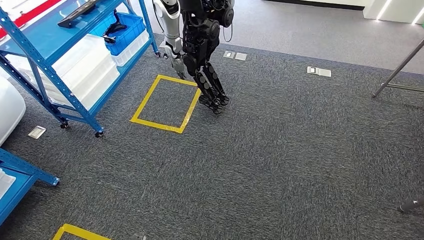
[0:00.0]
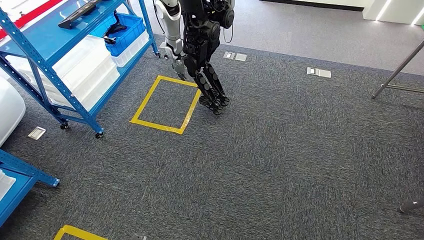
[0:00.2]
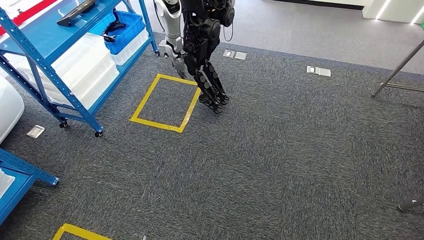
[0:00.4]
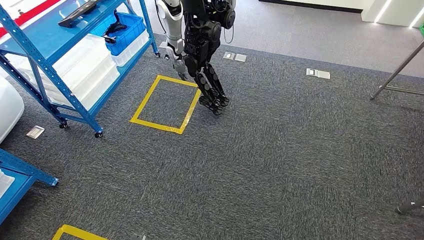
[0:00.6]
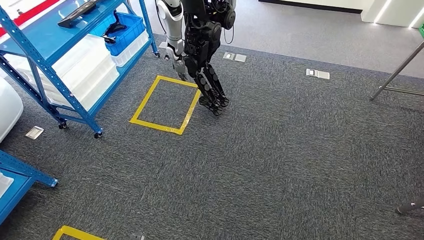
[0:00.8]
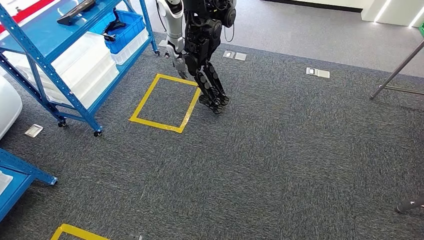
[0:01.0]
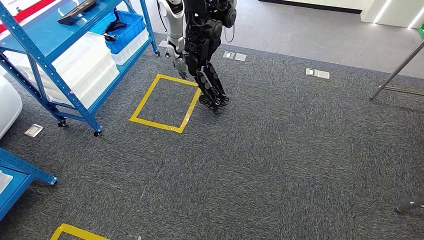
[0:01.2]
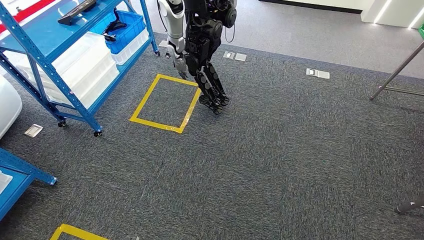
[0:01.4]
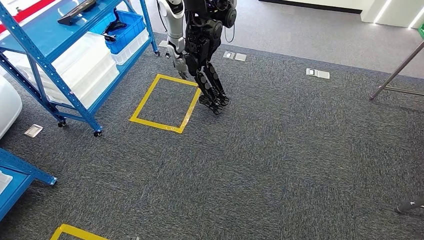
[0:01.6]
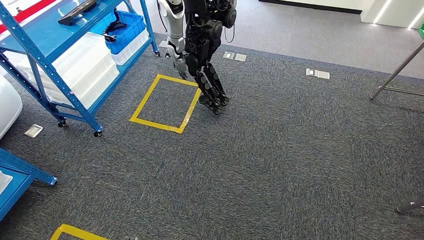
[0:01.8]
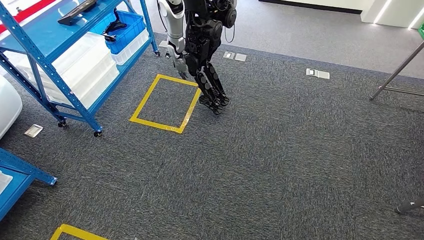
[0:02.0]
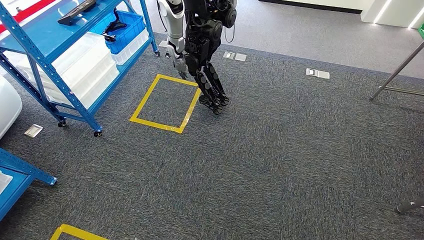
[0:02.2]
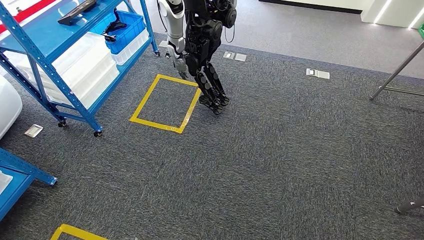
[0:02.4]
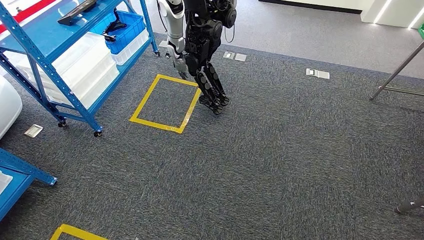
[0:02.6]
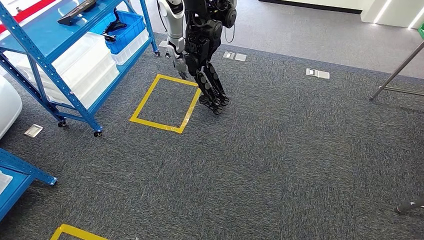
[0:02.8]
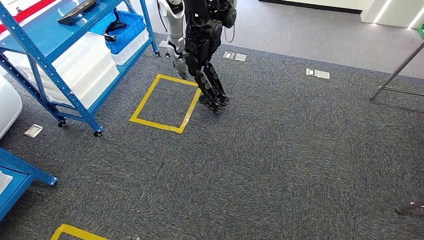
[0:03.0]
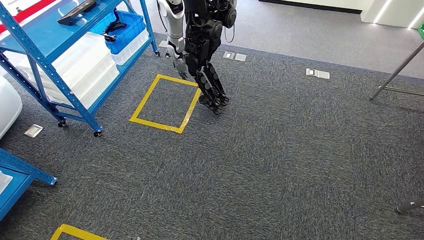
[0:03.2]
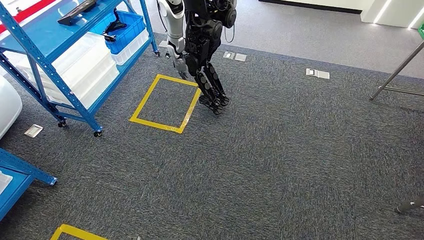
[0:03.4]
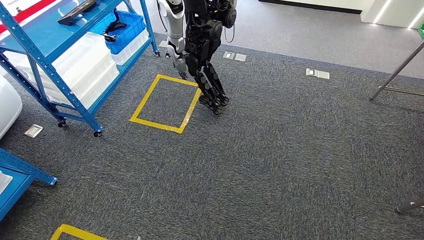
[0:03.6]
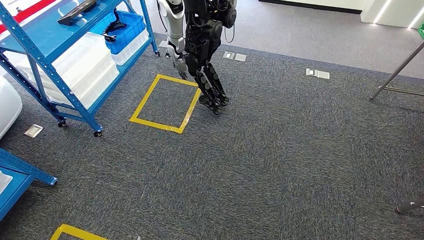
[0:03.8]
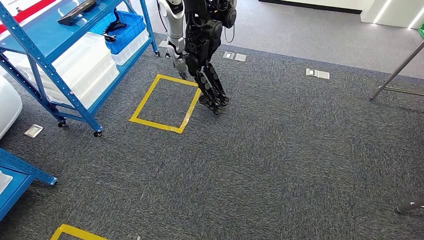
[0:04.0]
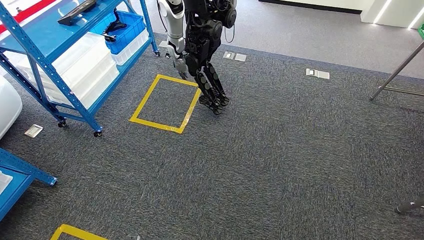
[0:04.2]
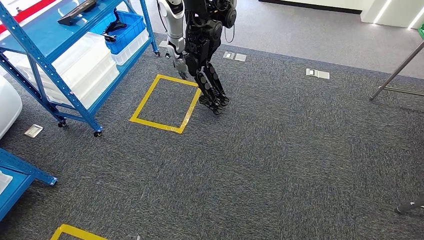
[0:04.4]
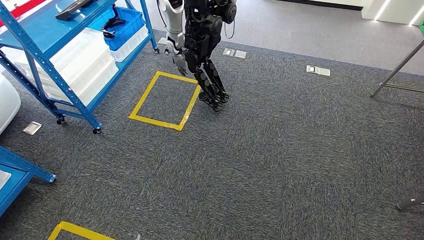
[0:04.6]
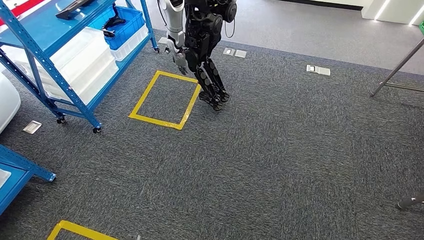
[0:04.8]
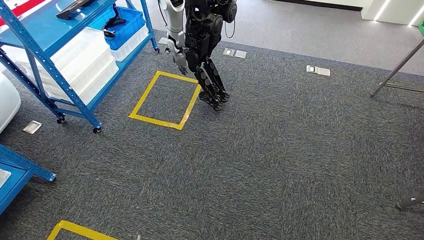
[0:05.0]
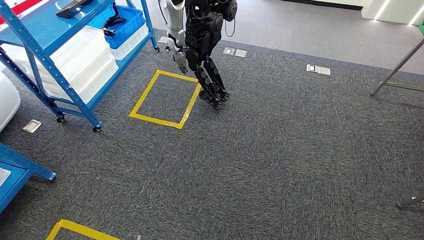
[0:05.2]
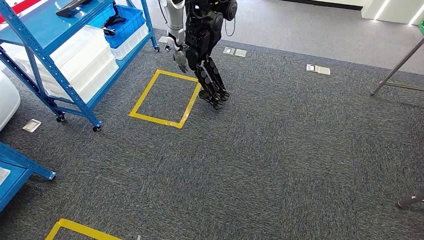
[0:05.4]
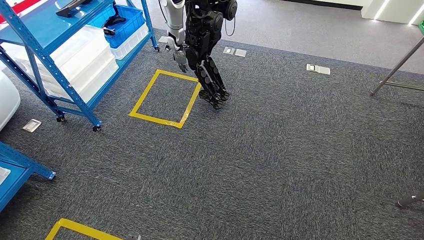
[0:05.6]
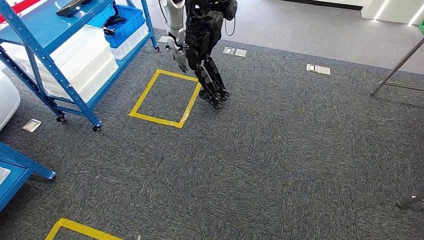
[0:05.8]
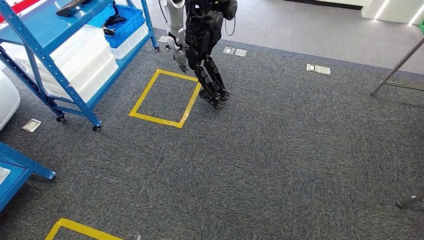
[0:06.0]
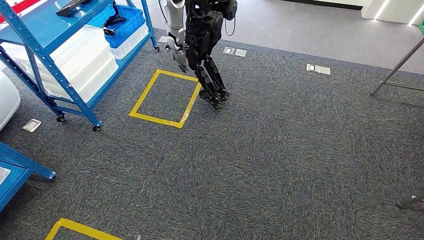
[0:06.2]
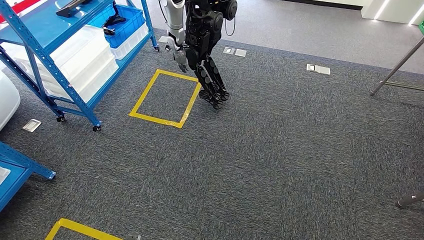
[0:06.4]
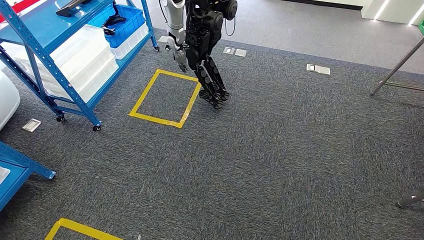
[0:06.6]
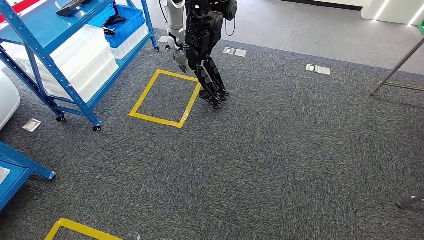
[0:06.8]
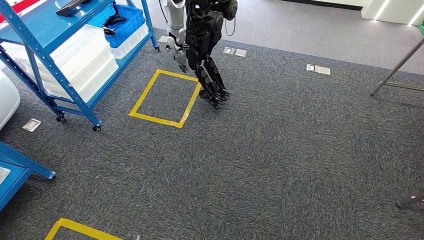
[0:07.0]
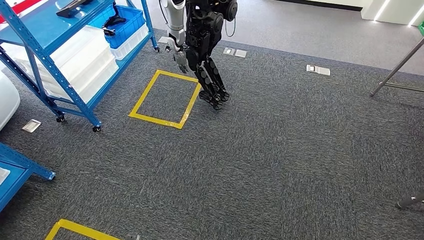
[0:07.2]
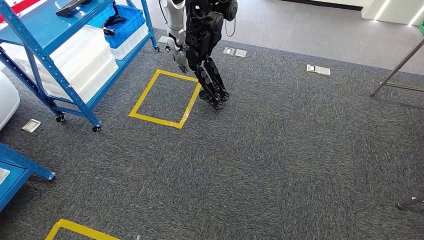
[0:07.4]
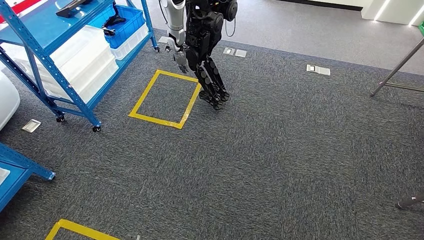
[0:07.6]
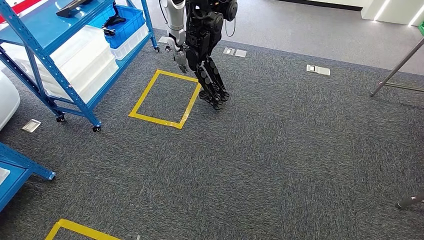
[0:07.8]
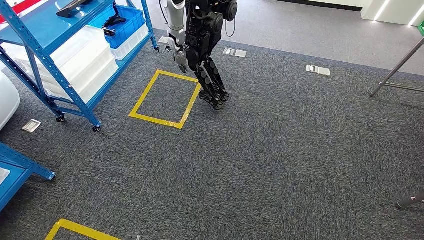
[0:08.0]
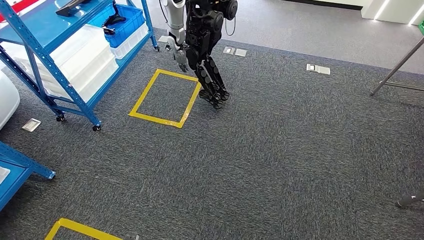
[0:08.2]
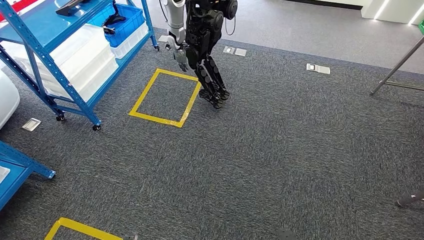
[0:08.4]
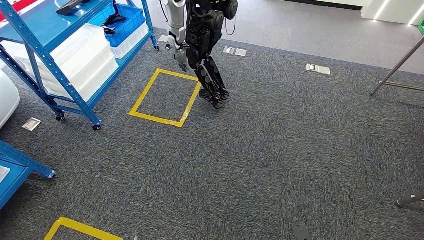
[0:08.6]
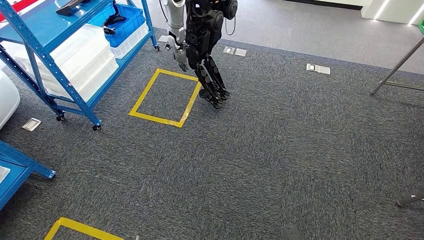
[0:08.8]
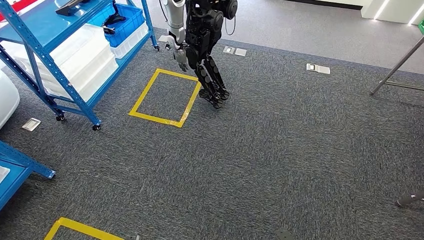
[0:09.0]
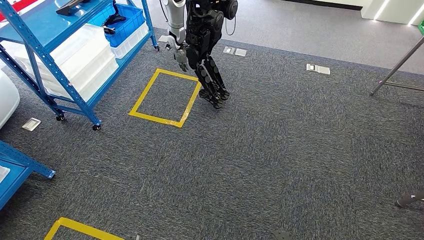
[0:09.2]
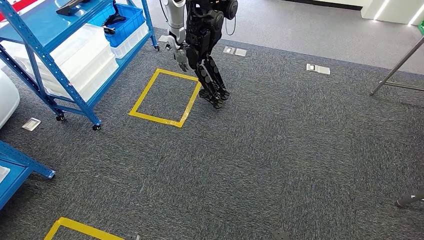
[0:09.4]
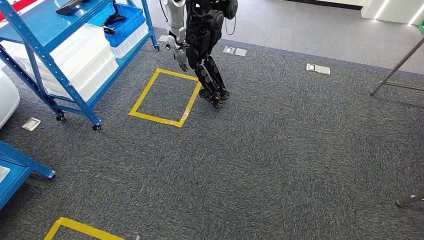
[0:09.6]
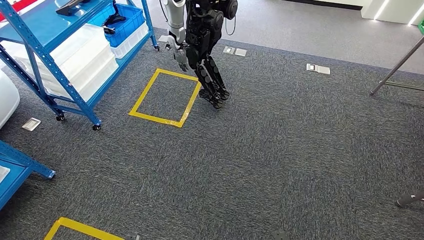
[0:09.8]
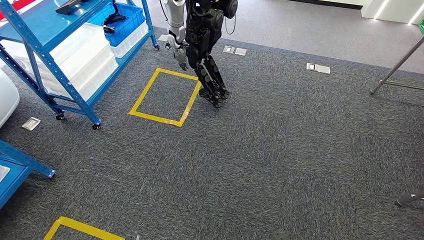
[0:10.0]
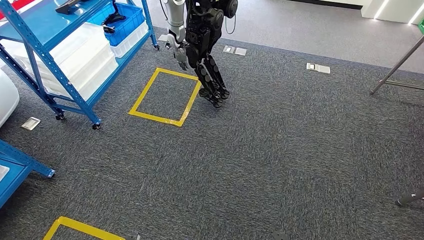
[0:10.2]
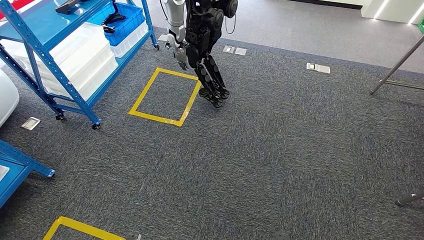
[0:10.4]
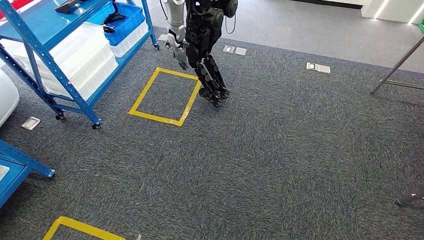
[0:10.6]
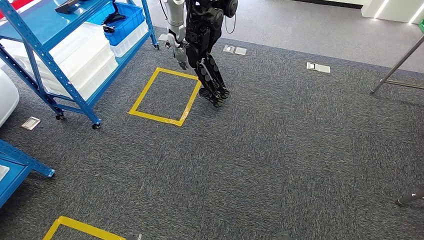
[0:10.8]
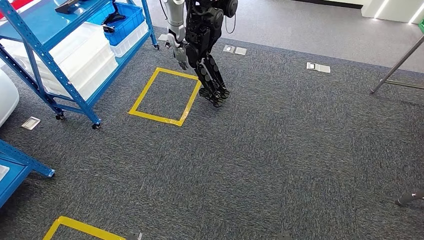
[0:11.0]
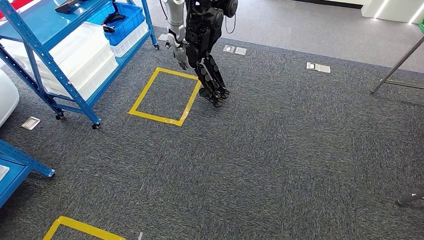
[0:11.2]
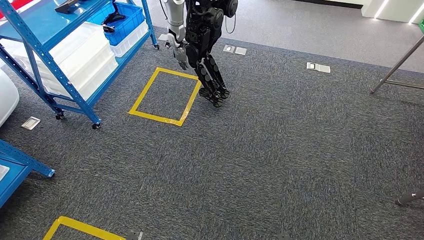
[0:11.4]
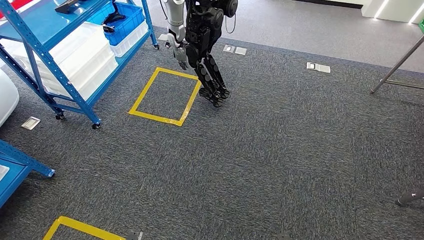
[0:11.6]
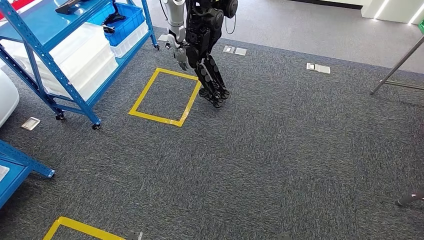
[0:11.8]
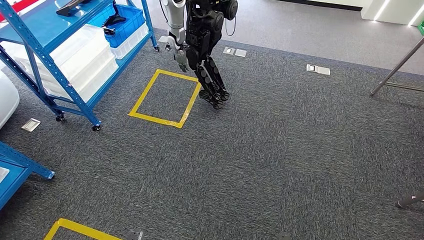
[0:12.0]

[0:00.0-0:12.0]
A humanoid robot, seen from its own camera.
0:00.0 to 0:01.6: The hands stay close to where they were, moving slightly.
0:01.6 to 0:04.4: The two hands keep their place.
0:04.4 to 0:07.6: Neither hand changes place.
0:09.0 to 0:10.4: The two hands keep their place.
0:10.4 to 0:12.0: Neither hand changes place.

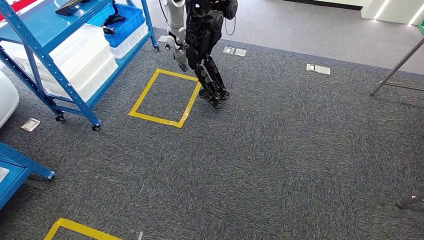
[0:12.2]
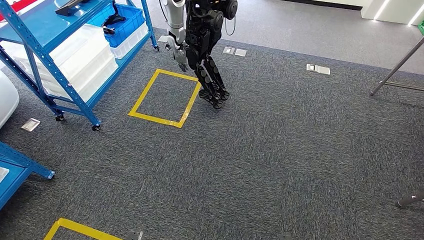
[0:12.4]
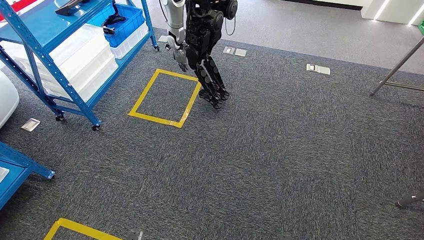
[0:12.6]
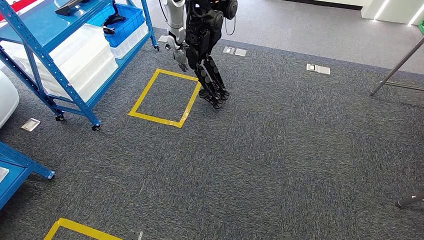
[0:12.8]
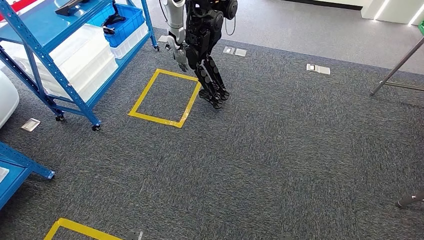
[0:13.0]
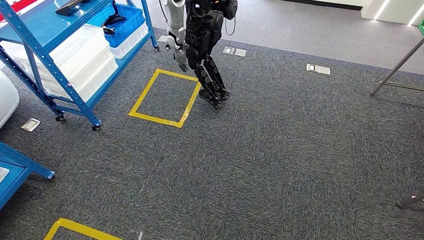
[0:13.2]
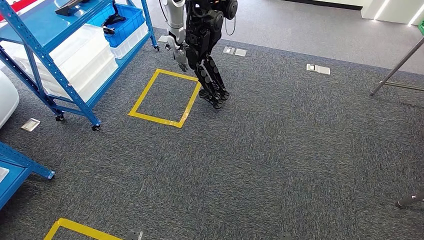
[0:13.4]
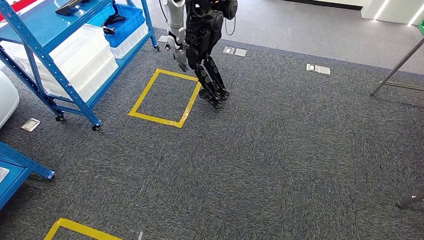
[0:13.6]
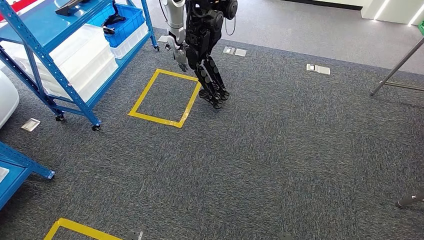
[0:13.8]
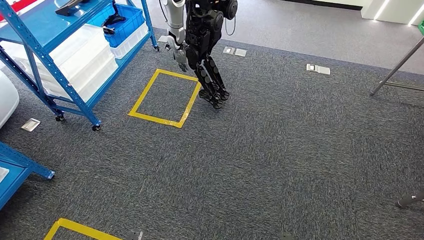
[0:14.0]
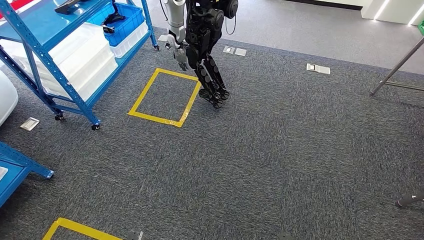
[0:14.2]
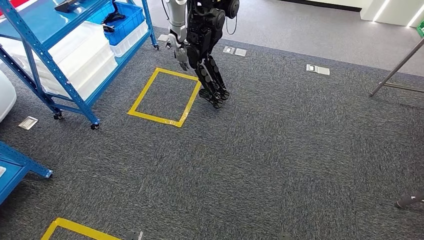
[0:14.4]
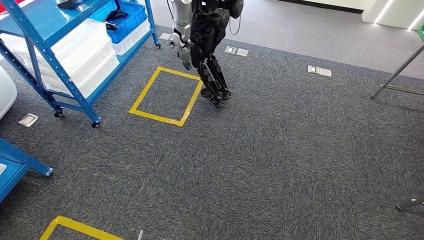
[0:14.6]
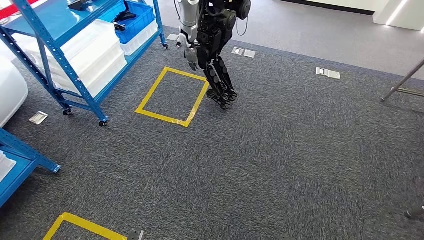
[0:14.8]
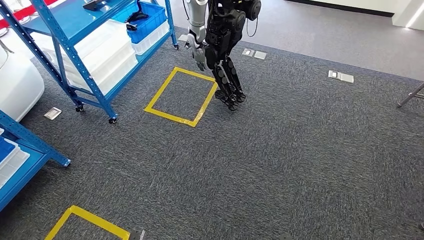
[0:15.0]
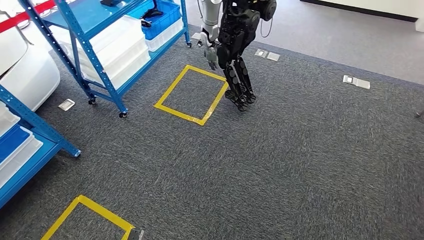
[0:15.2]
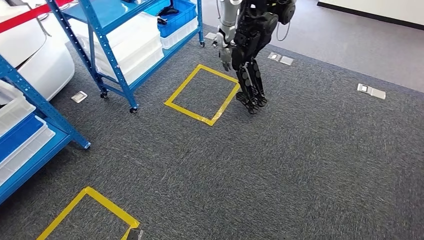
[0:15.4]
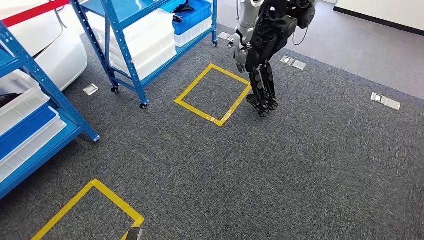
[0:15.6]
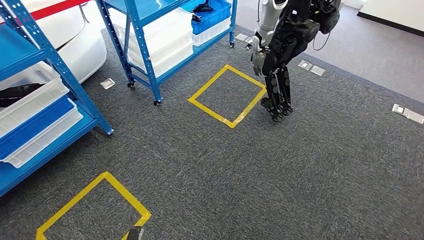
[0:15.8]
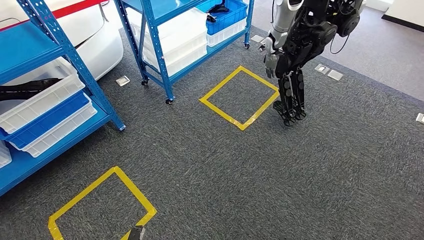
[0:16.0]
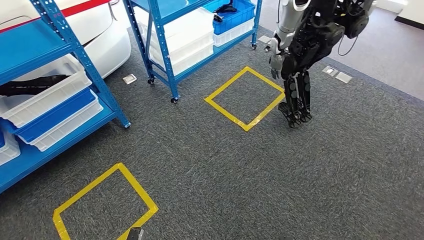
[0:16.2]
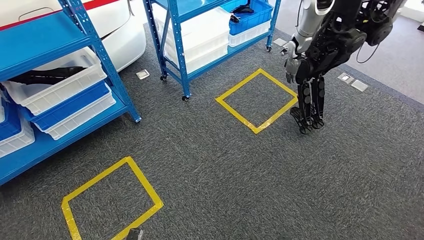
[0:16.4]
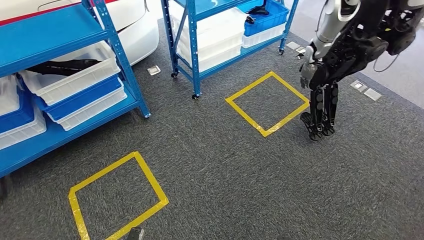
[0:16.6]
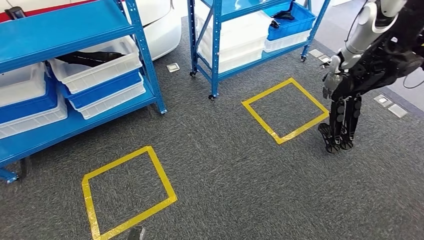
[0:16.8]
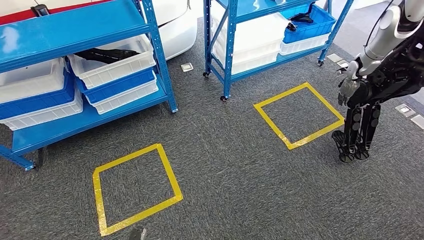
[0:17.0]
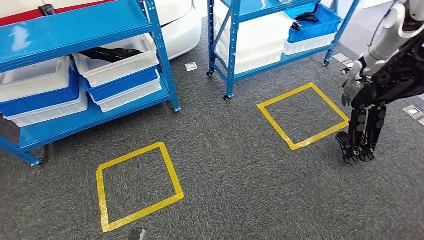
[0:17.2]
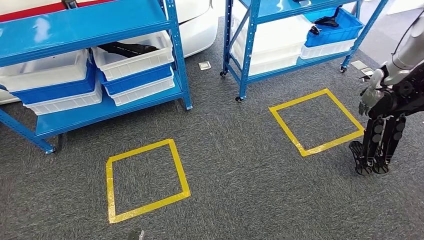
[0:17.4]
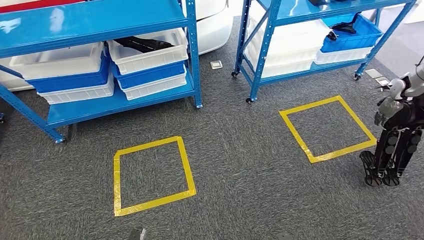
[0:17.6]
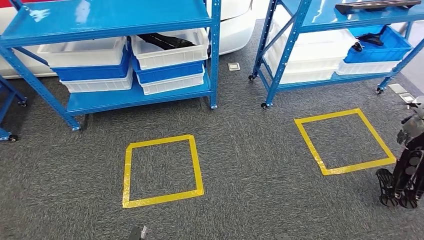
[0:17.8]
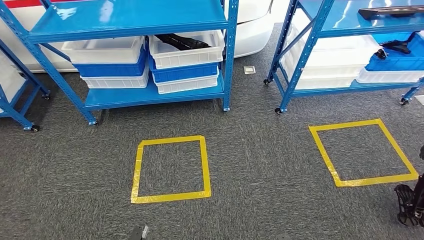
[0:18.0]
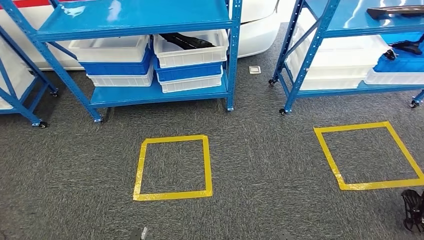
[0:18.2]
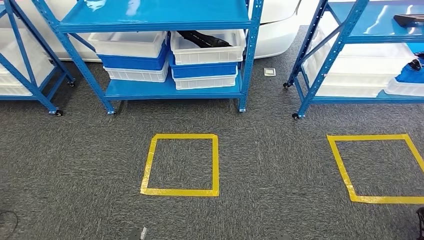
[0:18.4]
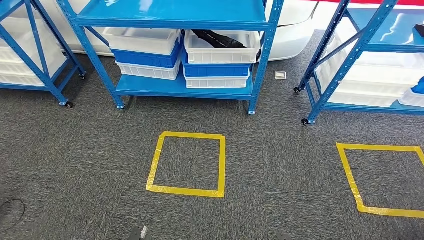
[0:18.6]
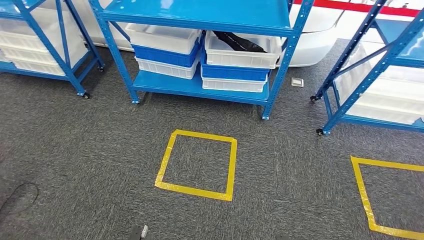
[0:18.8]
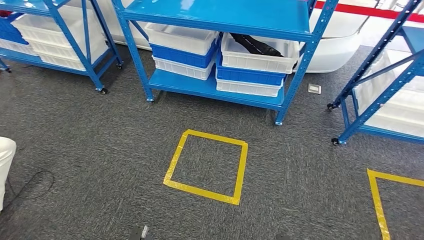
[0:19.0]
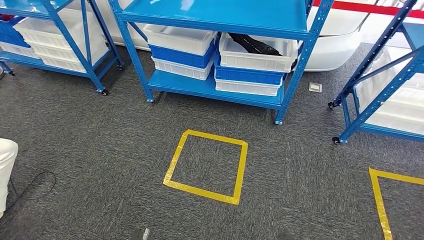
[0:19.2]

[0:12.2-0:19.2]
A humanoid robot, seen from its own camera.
0:12.2 to 0:13.6: Both hands stay about where they are.
